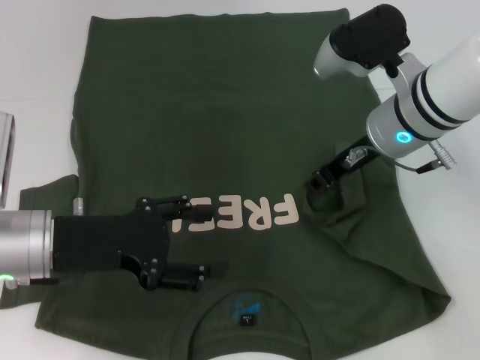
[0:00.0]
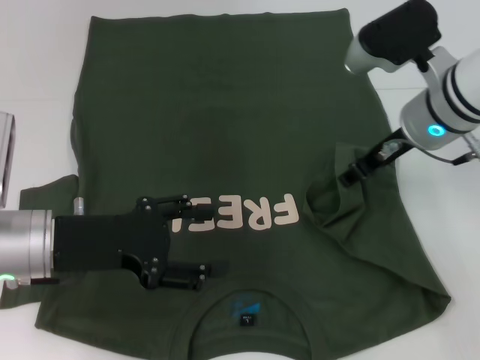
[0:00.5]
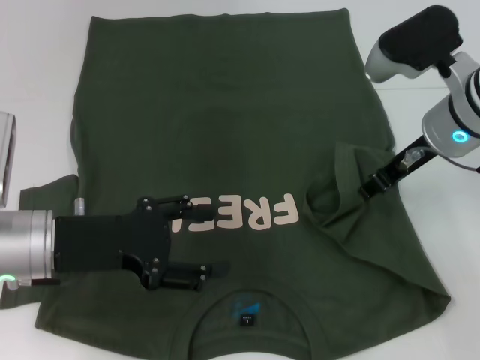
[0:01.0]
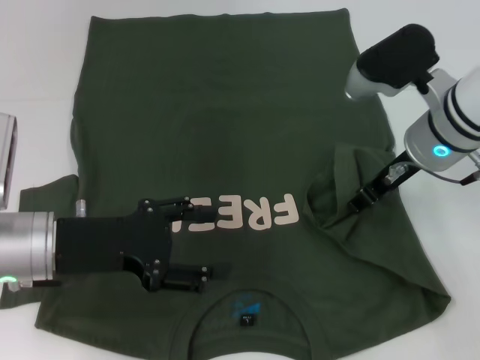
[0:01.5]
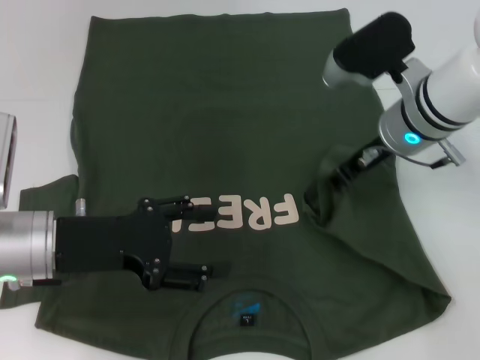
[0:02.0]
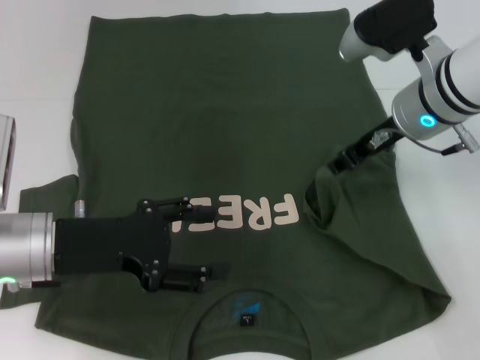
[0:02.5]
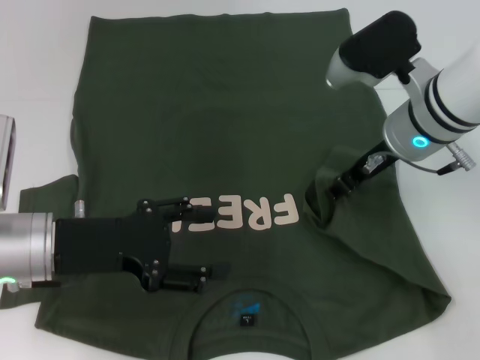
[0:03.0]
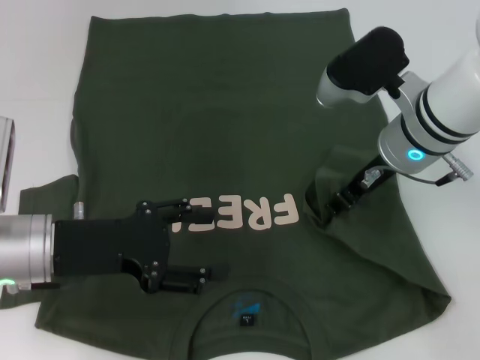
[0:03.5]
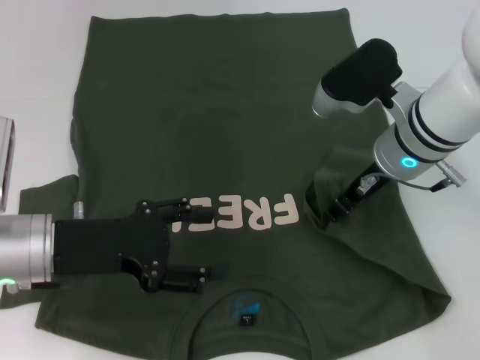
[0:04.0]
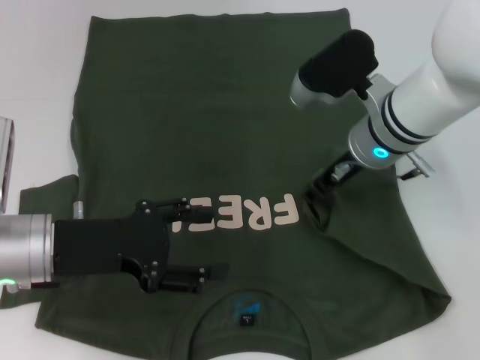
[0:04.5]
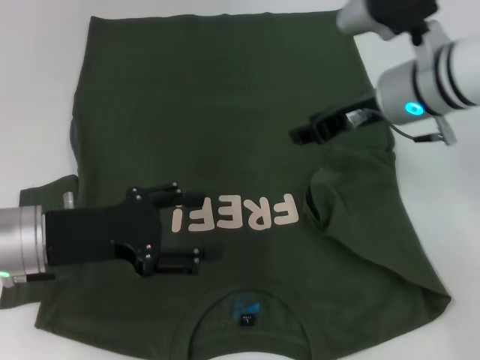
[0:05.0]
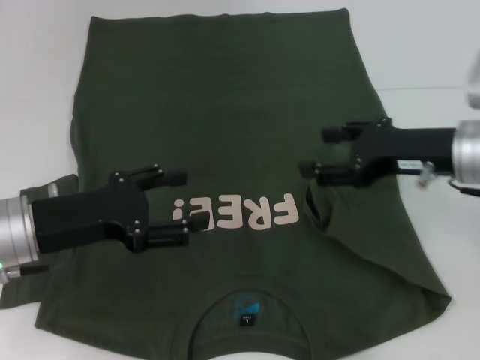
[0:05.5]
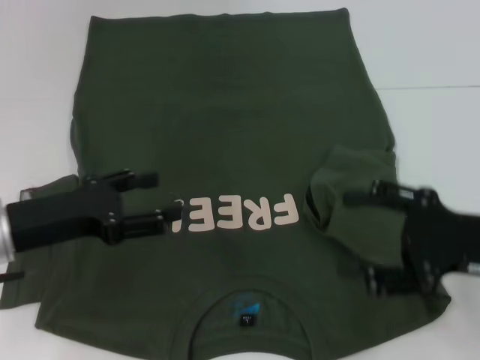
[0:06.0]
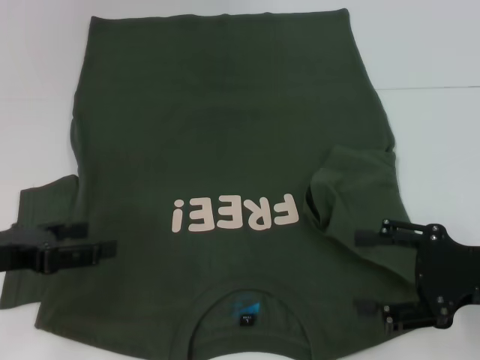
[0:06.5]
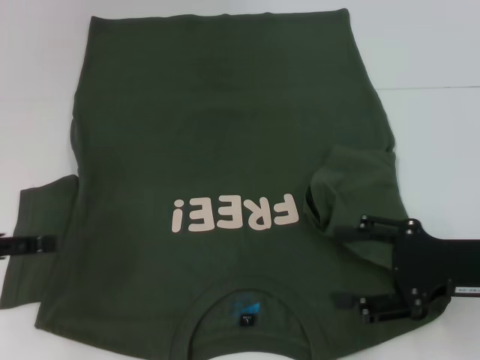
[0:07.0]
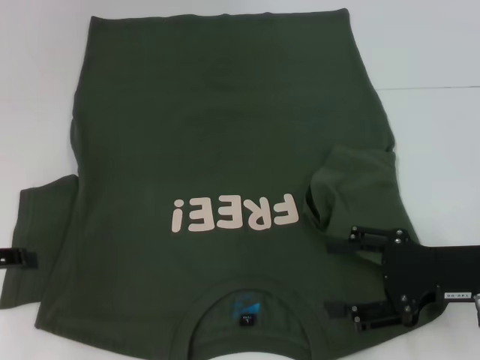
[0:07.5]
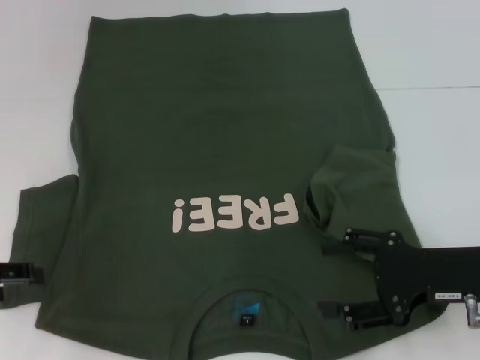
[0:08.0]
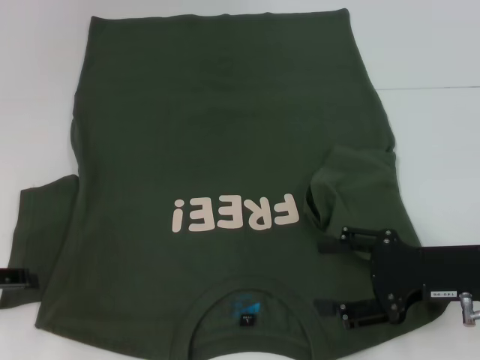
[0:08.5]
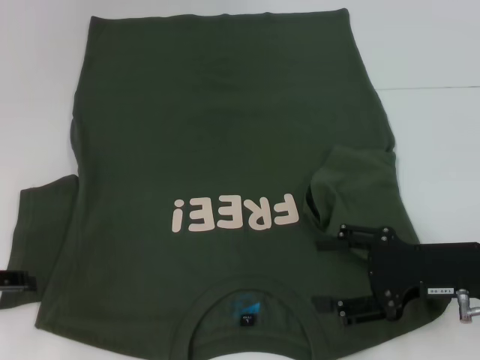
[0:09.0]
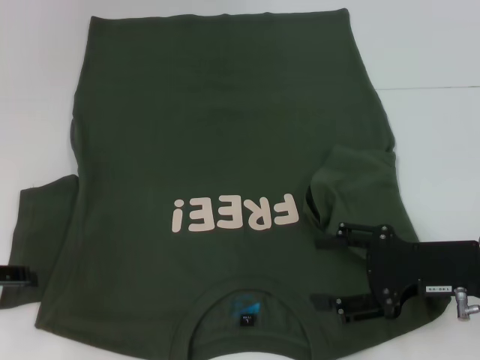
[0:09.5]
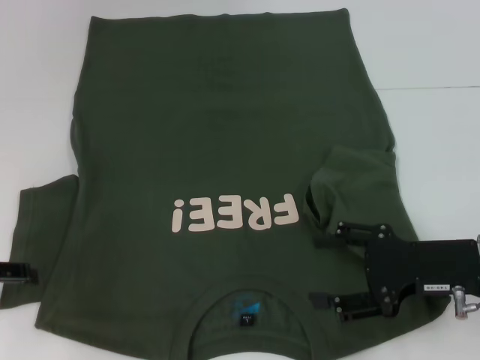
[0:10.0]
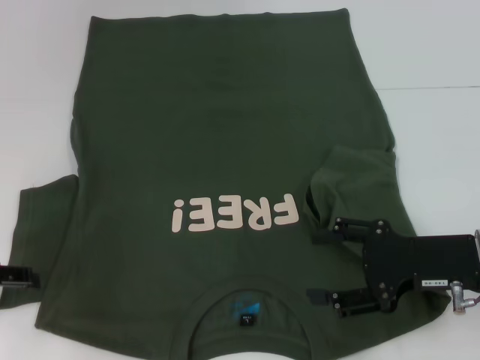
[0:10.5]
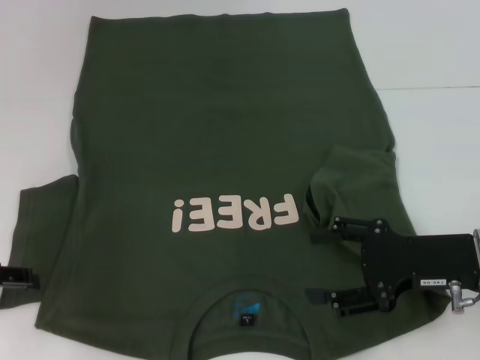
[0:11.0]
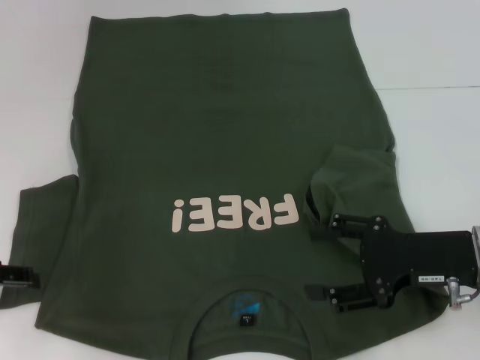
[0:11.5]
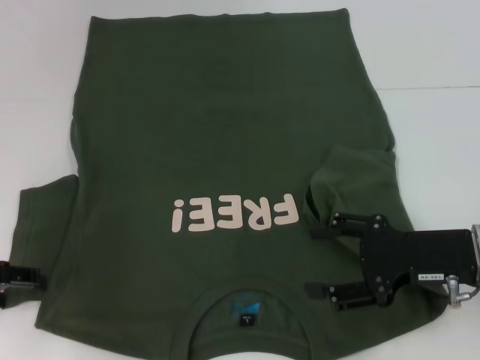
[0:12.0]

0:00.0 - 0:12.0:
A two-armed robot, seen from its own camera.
Step, 0:00.0 - 0:05.0: Fold the bottom right sleeve with your right hand.
0:00.0 - 0:04.0: The grippers stay close to where they were, moving slightly.
0:04.0 - 0:06.0: The right gripper goes some 20 cm backward and to the right, and opens its fingers.
0:06.0 - 0:08.0: The left gripper goes approximately 10 cm to the left.
0:08.0 - 0:10.0: There are only small adjustments of the grippers.
0:10.0 - 0:12.0: The two grippers keep their place.

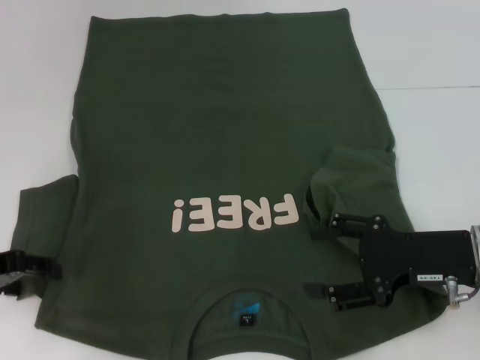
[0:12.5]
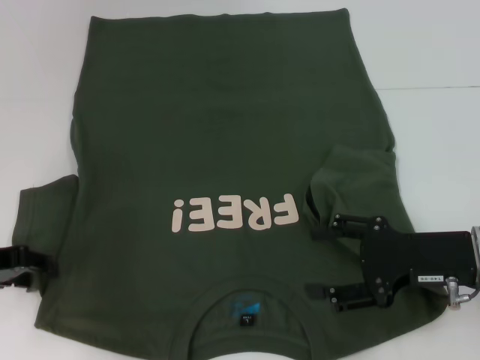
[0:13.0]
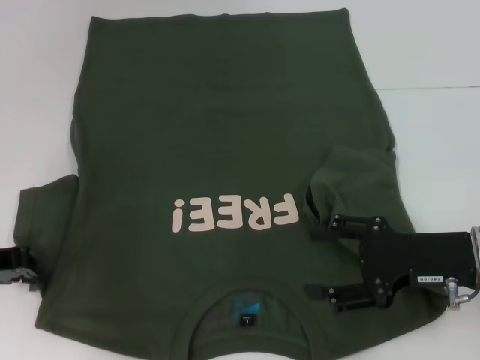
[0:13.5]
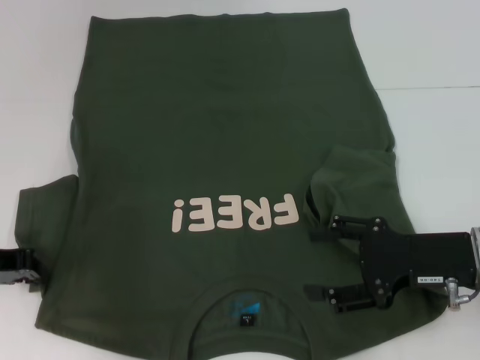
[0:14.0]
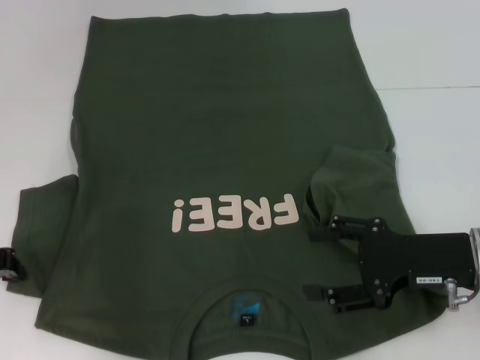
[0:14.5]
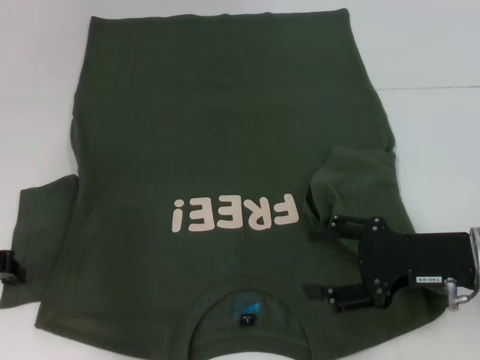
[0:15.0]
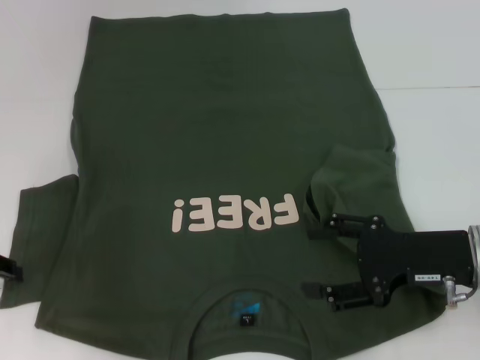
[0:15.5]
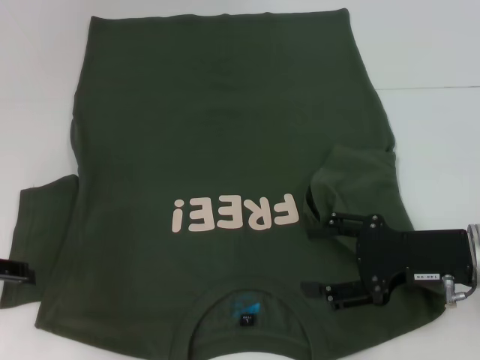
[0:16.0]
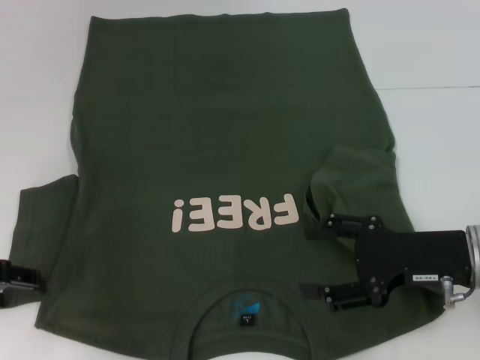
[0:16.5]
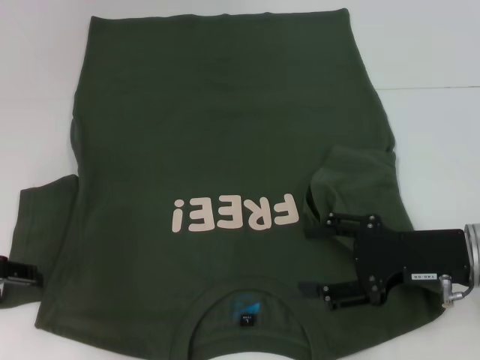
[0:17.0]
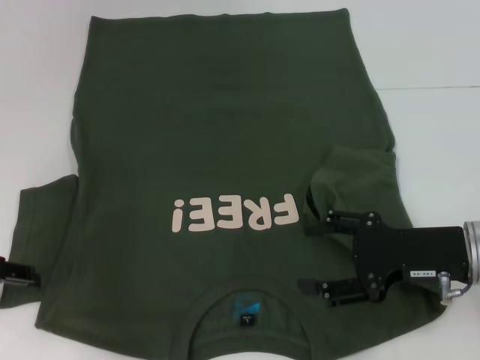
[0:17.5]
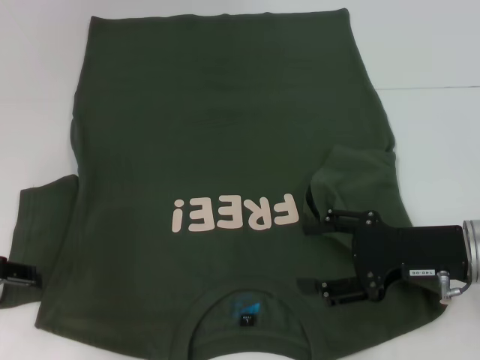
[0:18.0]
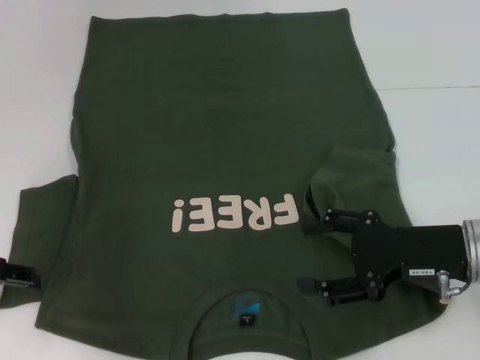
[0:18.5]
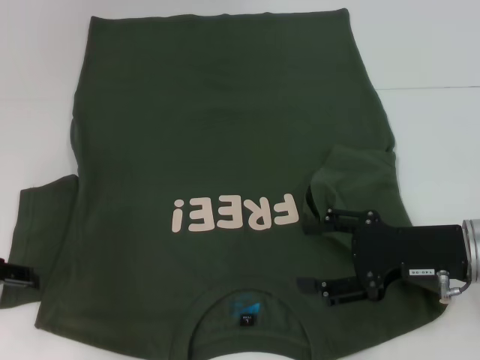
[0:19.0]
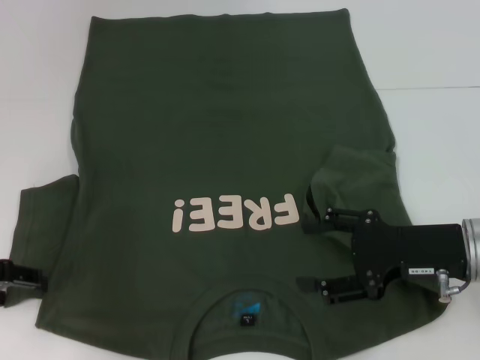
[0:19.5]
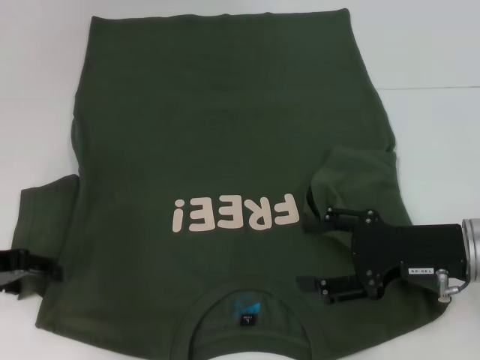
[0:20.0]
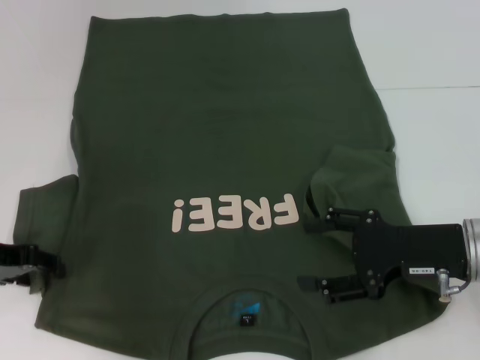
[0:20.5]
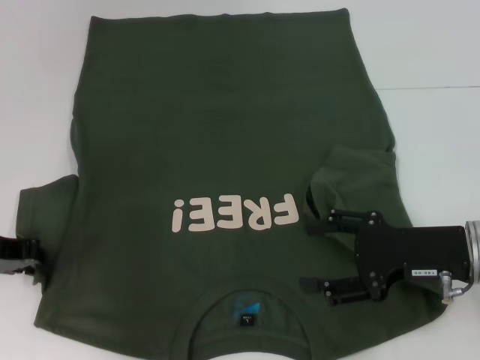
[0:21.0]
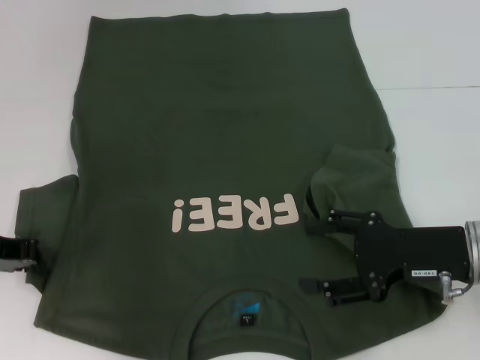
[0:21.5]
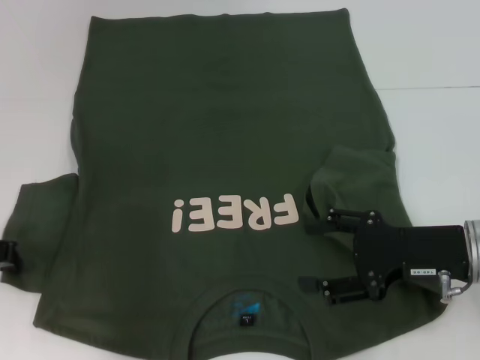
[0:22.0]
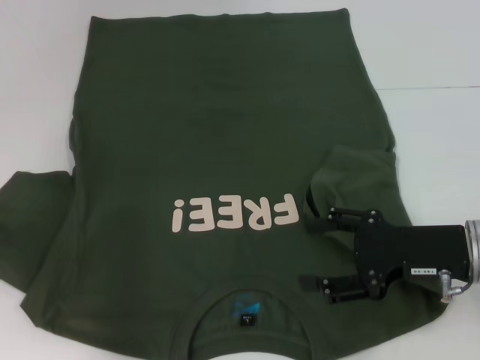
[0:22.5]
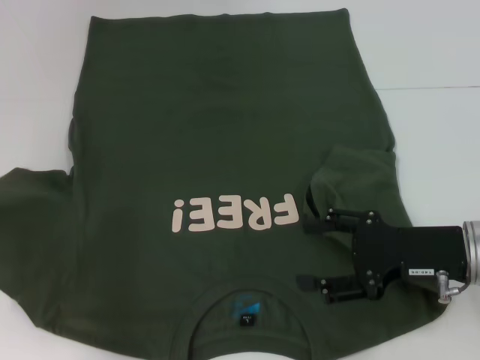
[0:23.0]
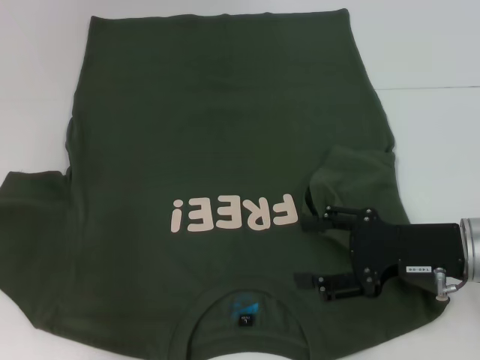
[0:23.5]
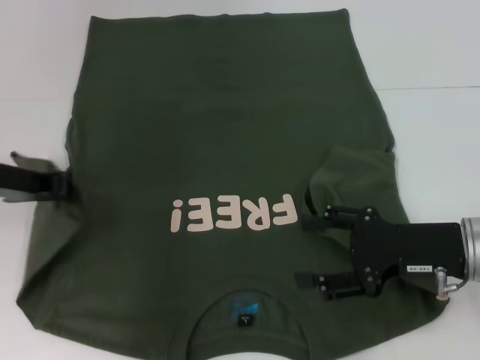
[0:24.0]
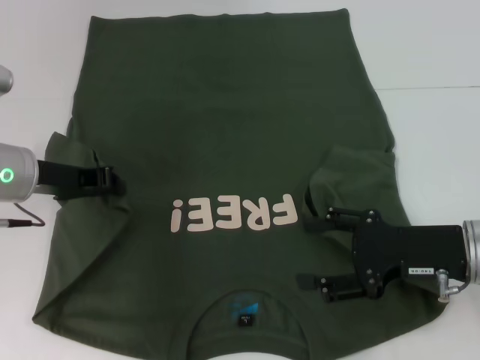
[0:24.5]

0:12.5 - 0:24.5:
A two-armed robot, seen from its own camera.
0:12.5 - 0:14.5: The left gripper closes up.
0:14.5 - 0:16.5: The left gripper opens its fingers.
0:16.5 - 0:18.5: Both grippers stay put.
0:18.5 - 0:20.5: The grippers make only small movements.
0:20.5 - 0:22.5: The left gripper closes its fingers.
0:22.5 - 0:24.5: The left gripper goes some 10 cm to the right.

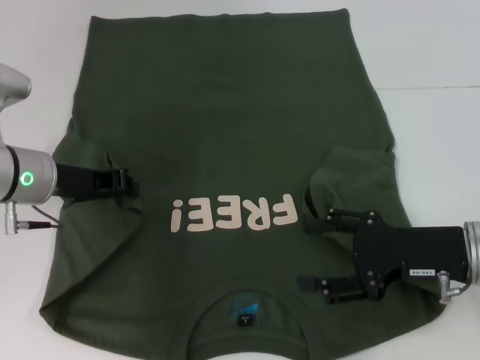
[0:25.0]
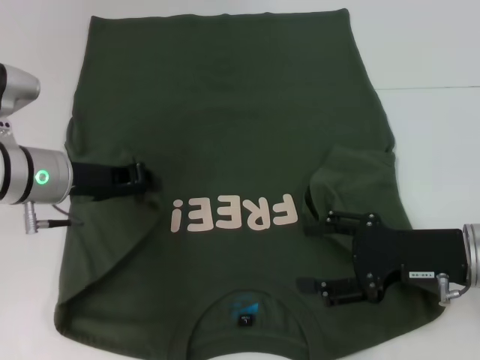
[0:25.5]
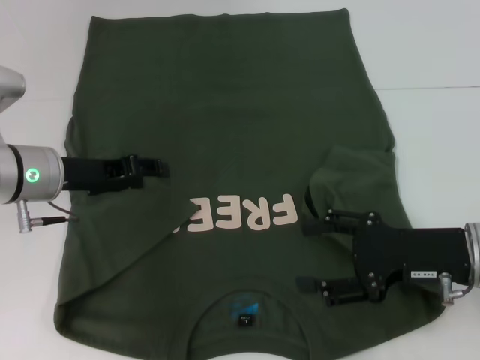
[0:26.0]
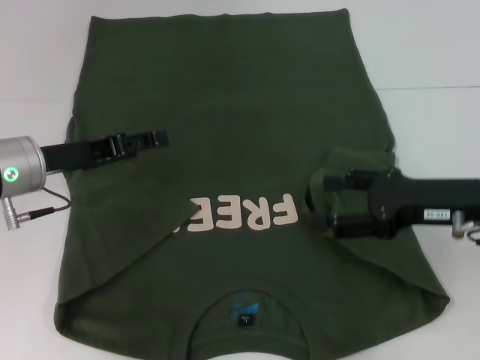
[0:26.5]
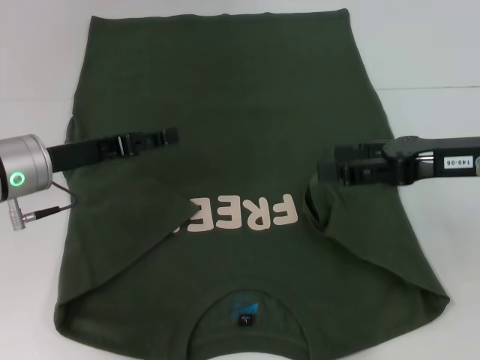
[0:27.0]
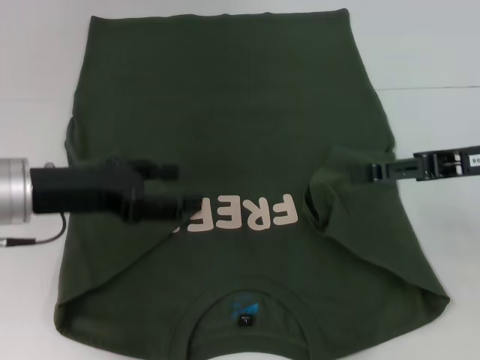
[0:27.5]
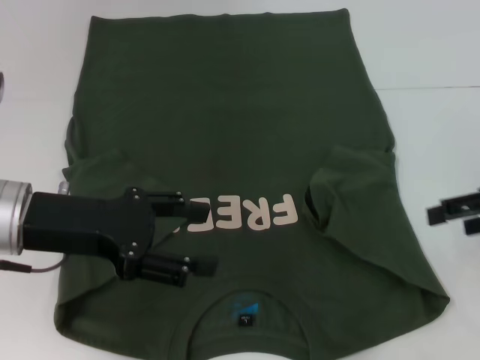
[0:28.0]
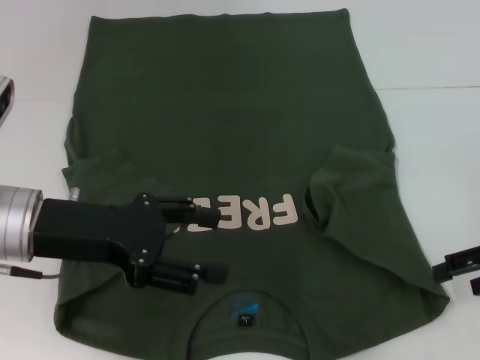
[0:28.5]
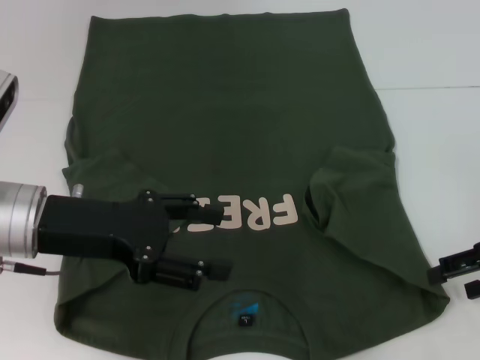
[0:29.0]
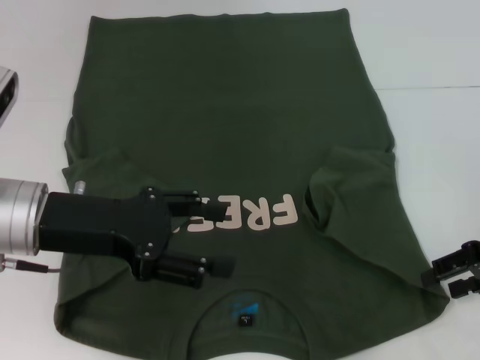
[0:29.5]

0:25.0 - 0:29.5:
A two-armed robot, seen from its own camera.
0:25.0 - 0:27.0: The right gripper travels upward by about 10 cm. Meanwhile the left gripper opens.
0:27.0 - 0:29.5: The right gripper is displaced to the right and downward by about 10 cm. The left gripper is displaced backward by roughly 5 cm.
